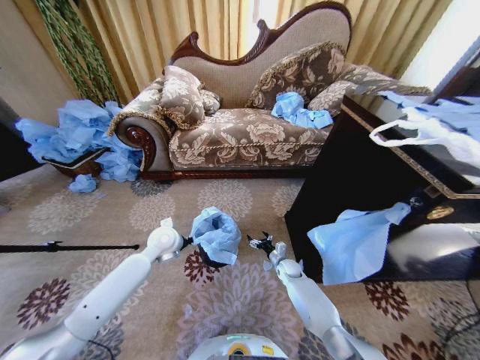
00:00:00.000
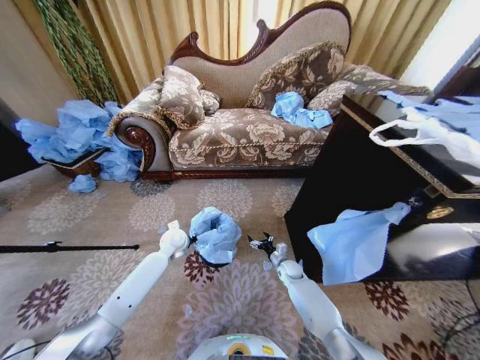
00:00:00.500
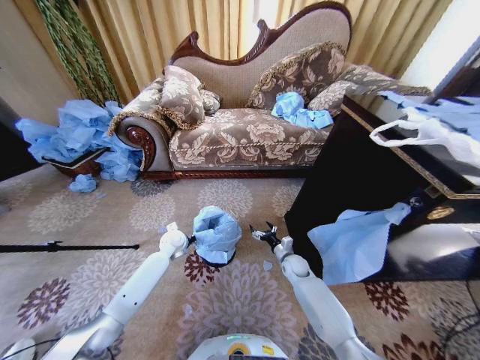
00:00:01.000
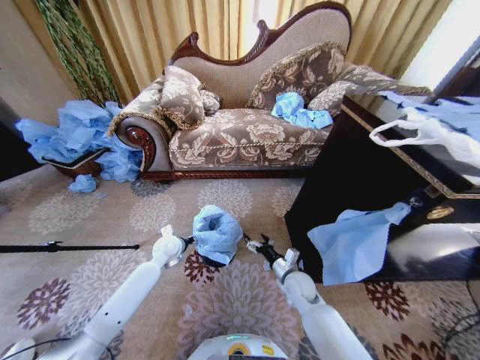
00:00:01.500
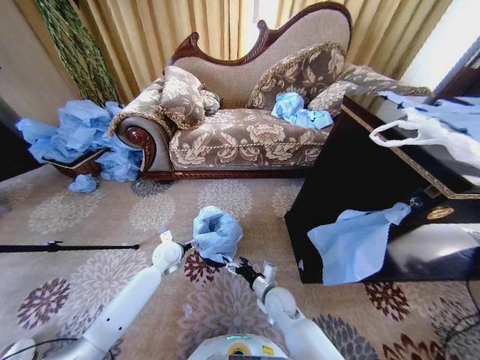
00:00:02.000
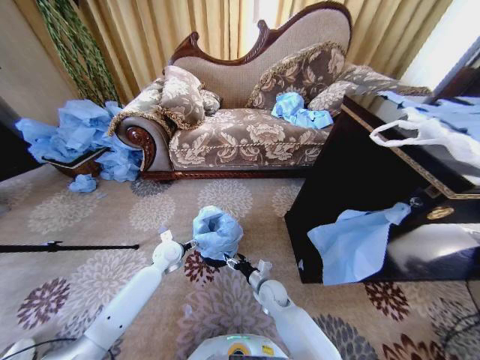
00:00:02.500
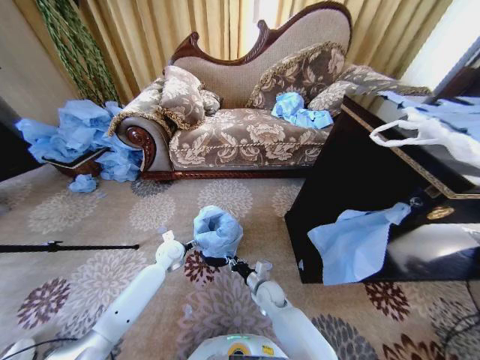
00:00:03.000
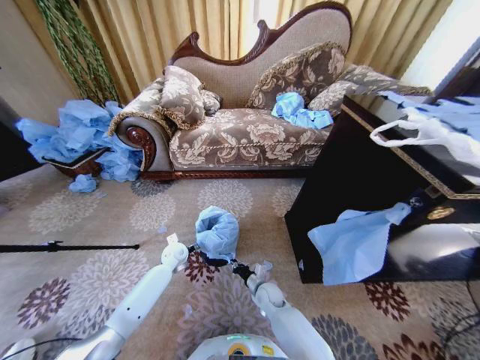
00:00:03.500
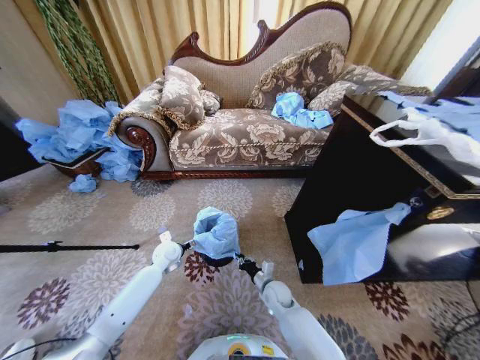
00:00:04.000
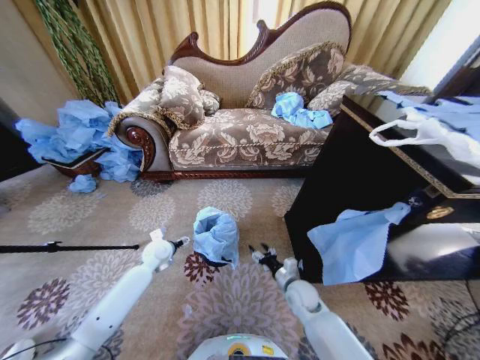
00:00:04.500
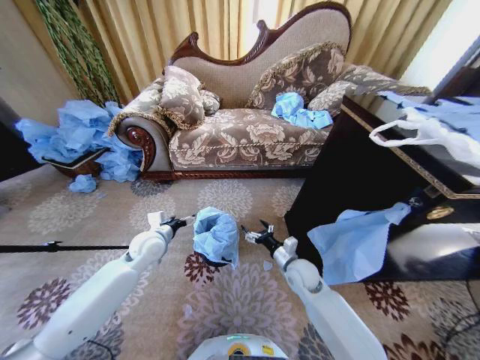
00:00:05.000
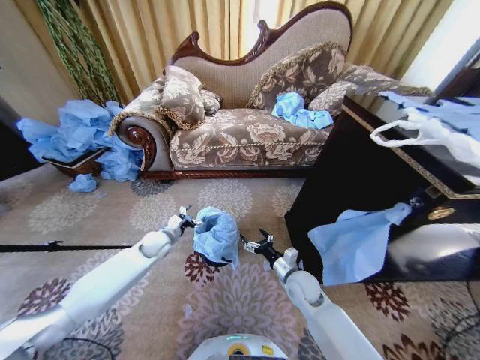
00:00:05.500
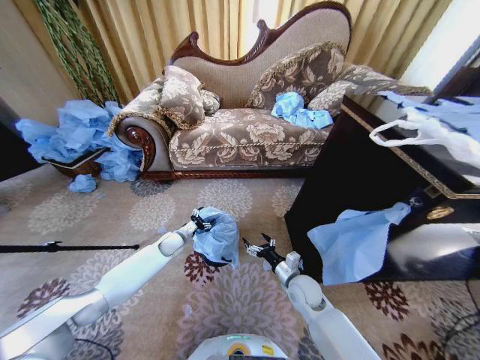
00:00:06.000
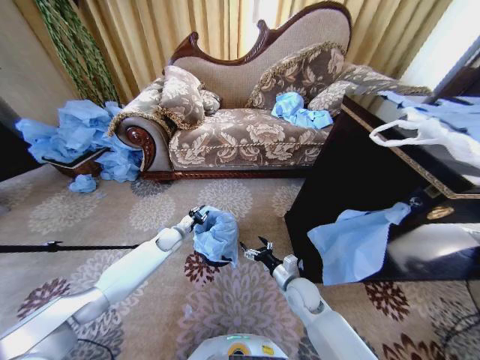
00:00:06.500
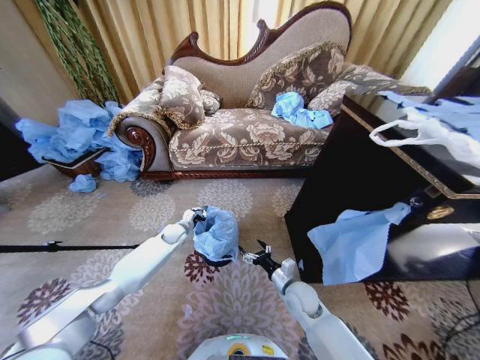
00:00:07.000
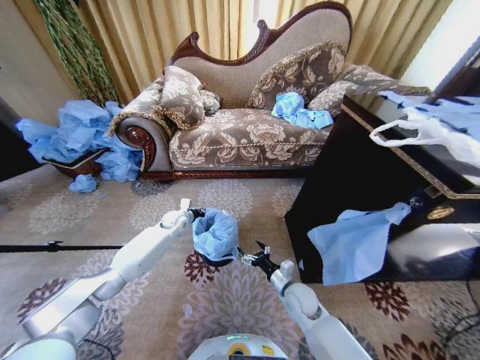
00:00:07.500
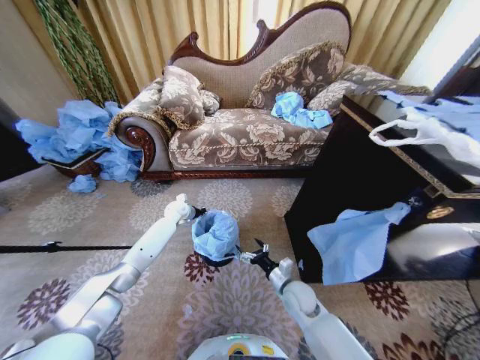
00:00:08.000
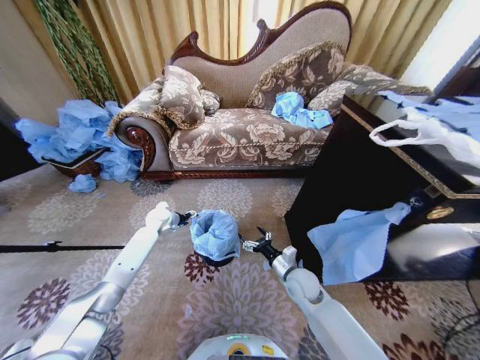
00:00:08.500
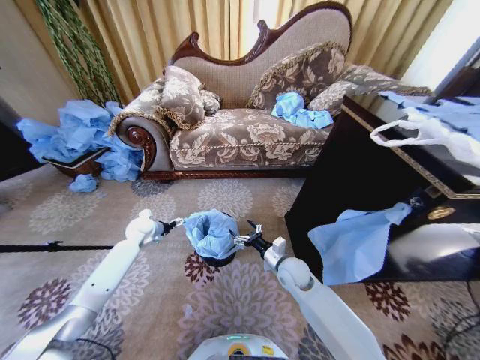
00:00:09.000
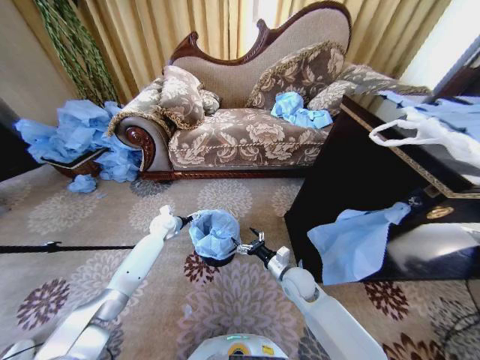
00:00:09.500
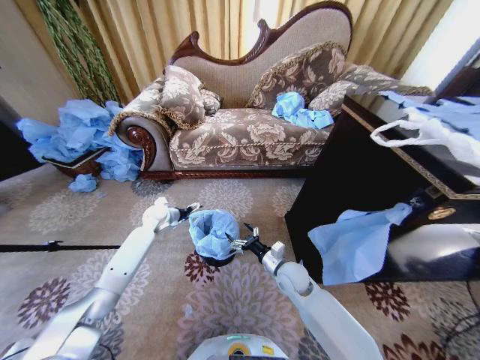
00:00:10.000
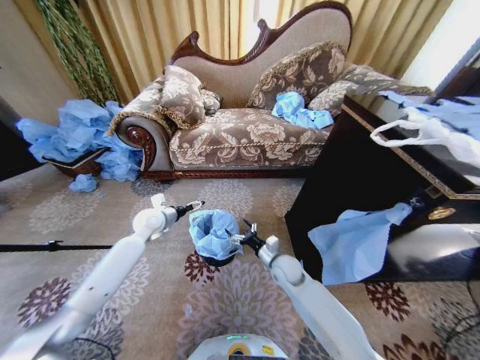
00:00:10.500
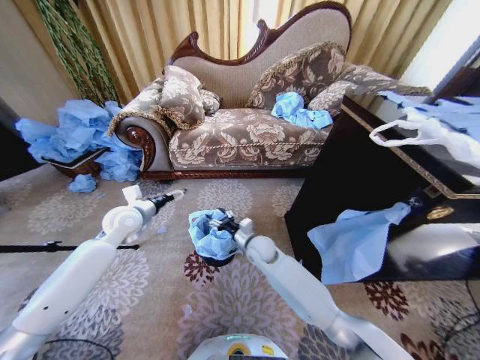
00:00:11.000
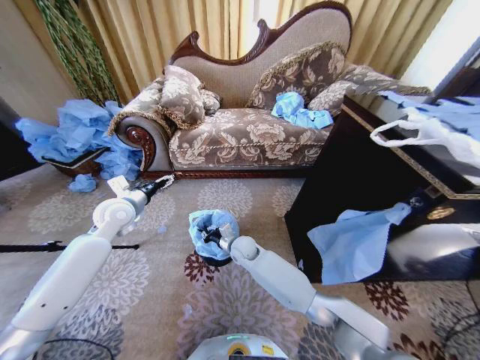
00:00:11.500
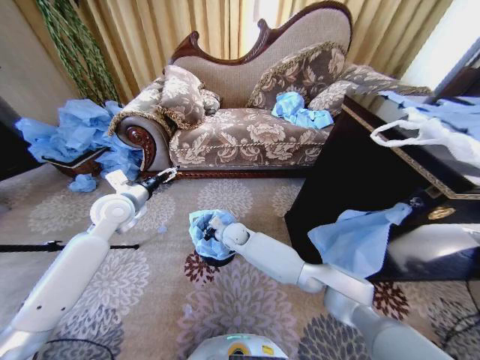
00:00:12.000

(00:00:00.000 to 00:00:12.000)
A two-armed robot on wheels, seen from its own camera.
Task of the whole recording: Place a garbage bag over the trash bin.
00:00:00.000 - 00:00:02.000: The right gripper goes approximately 20 cm backward, upward and to the left. The left gripper is displaced downward by approximately 10 cm, and opens up.
00:00:02.000 - 00:00:04.000: The right gripper moves some 5 cm, and closes.
00:00:04.000 - 00:00:06.000: The left gripper shifts roughly 5 cm forward, and reaches approximately 10 cm upward, then returns, while the right gripper travels upward and to the right by approximately 10 cm, and opens.
00:00:06.000 - 00:00:08.000: The left gripper is displaced forward and upward by approximately 15 cm, and closes up.
00:00:08.000 - 00:00:10.000: The right gripper shifts by about 5 cm. The left gripper heads backward, covering about 5 cm, and opens.
00:00:10.000 - 00:00:12.000: The left gripper moves upward and backward, some 20 cm. Meanwhile the right gripper goes roughly 25 cm to the left and forward, and closes.

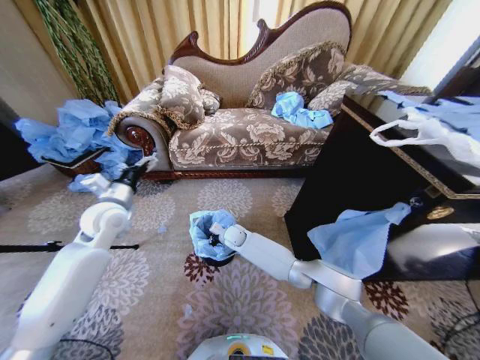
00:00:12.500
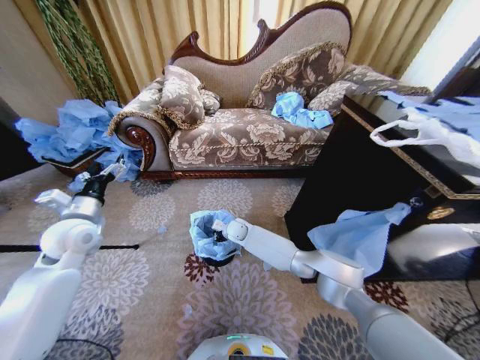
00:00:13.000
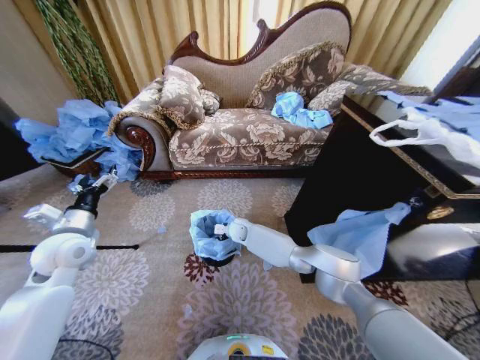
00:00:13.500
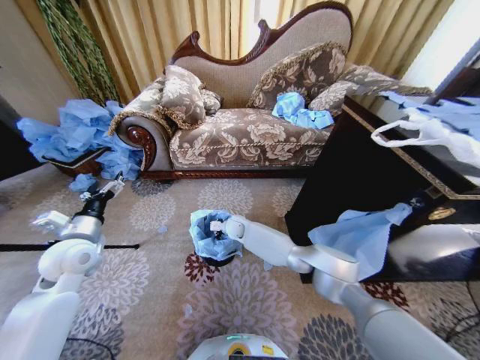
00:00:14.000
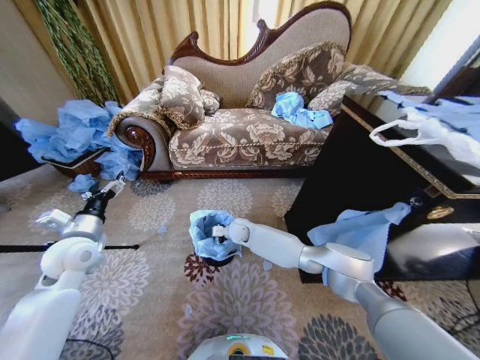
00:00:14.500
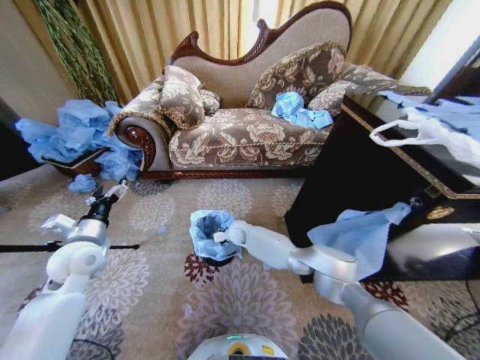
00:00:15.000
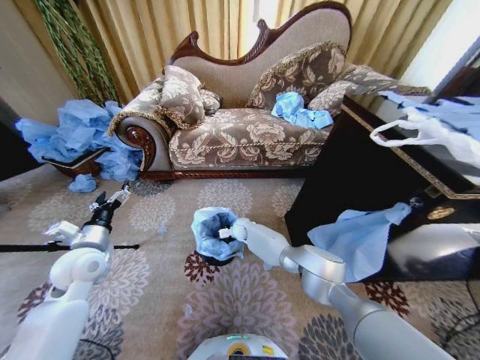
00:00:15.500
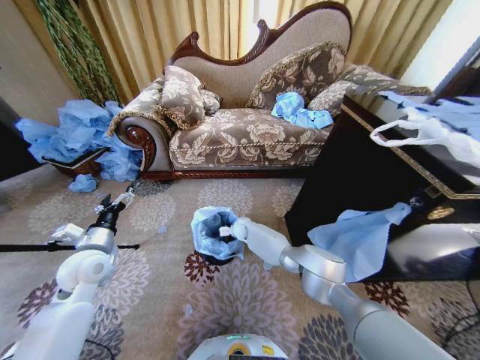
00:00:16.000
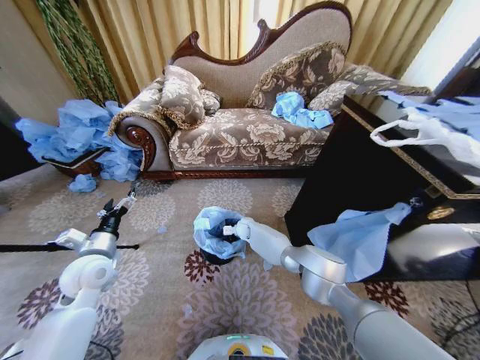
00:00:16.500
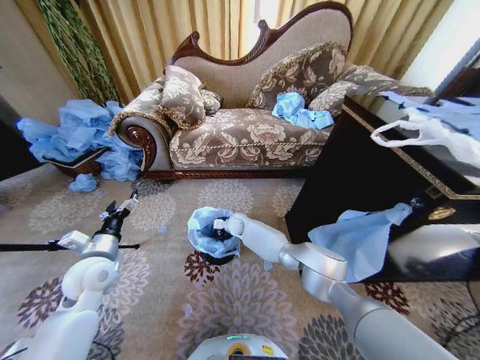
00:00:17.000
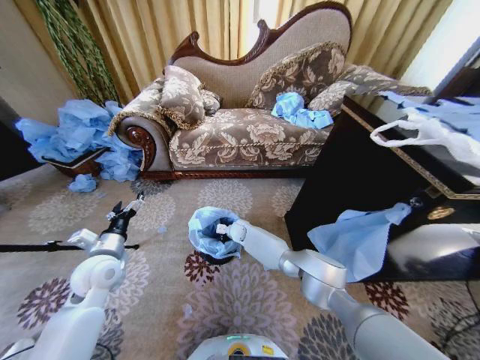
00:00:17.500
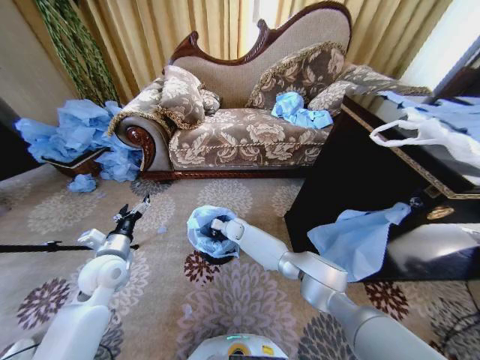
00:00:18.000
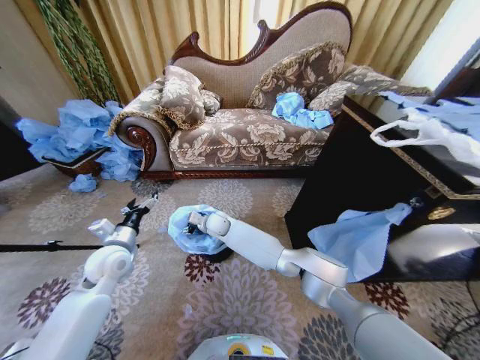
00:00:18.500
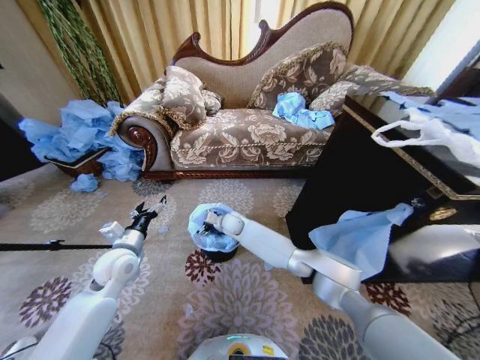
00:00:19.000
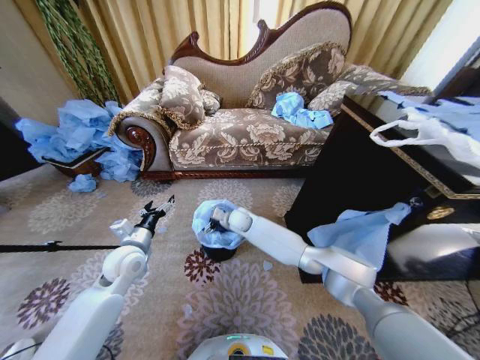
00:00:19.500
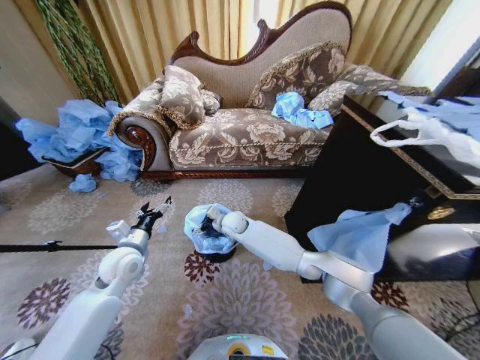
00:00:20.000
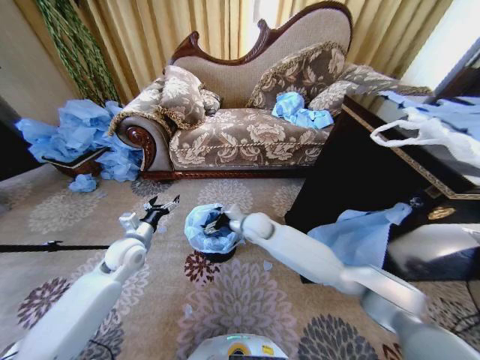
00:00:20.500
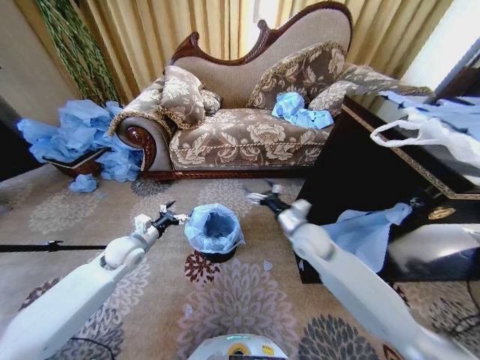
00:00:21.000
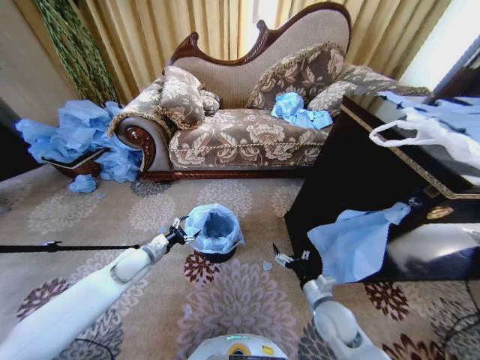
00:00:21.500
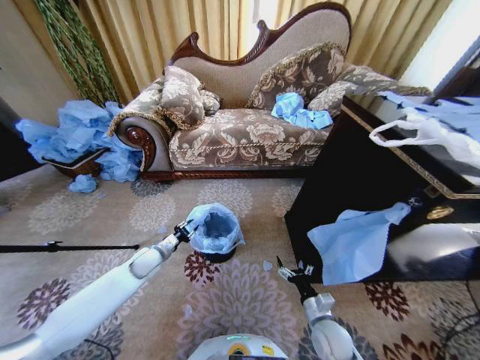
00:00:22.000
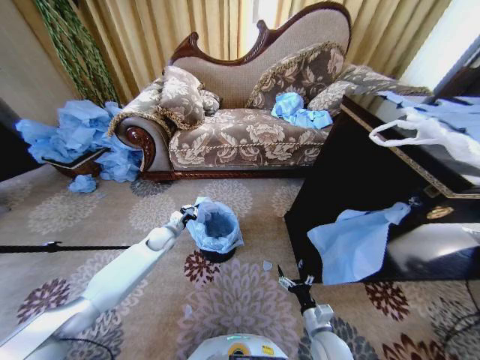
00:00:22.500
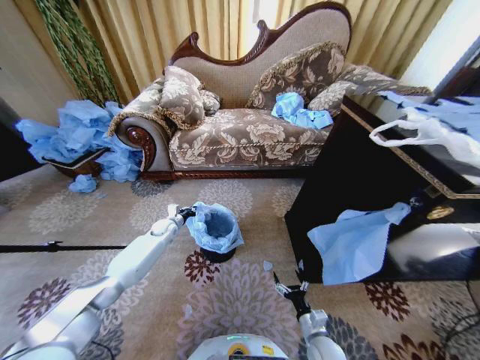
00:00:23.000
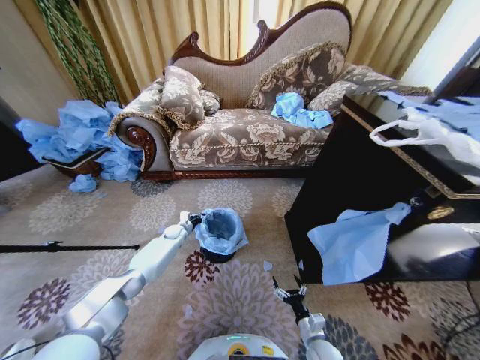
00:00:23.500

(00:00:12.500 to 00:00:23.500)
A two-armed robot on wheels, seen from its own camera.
Task of the whole recording: Place a garbage bag over the trash bin.
00:00:12.500 - 00:00:14.500: The left gripper travels backward by approximately 10 cm.
00:00:14.500 - 00:00:16.000: The right gripper shifts by approximately 5 cm.
00:00:18.000 - 00:00:20.000: The right gripper is displaced upward by some 10 cm, and opens its fingers.
00:00:20.000 - 00:00:21.500: The left gripper goes some 5 cm downward. Meanwhile the right gripper heads to the right and backward, covering roughly 40 cm.
00:00:21.500 - 00:00:23.500: The right gripper is displaced downward and backward by roughly 15 cm, while the left gripper heads forward and downward, covering about 25 cm, and closes its fingers.

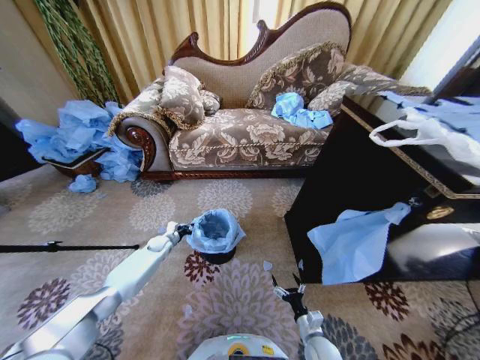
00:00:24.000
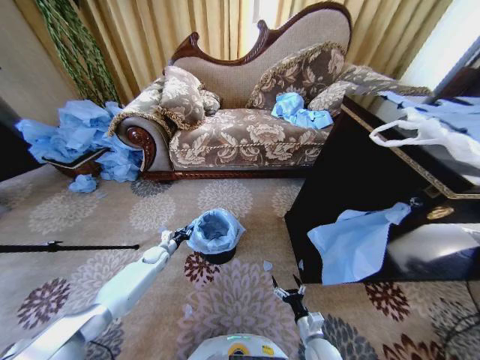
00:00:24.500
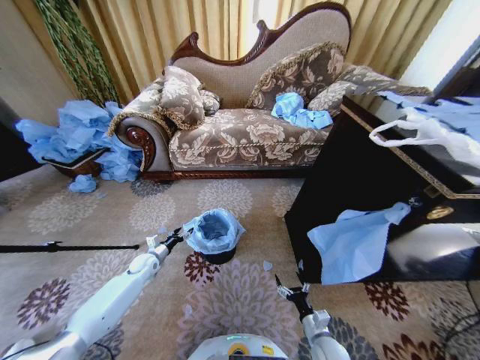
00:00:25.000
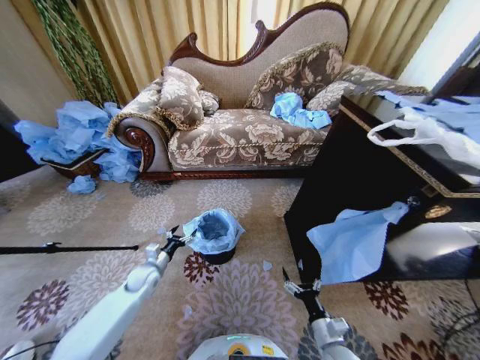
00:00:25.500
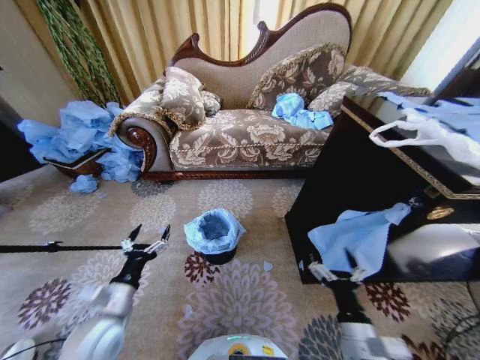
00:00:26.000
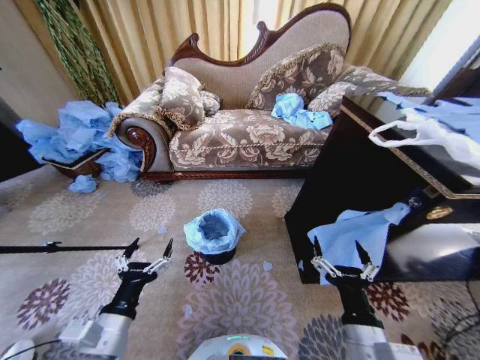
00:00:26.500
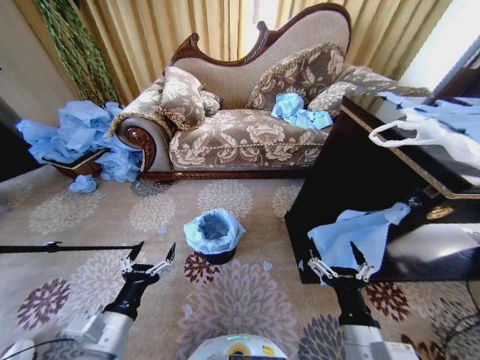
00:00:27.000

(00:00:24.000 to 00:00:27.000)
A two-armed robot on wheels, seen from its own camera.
Task of the whole recording: Place a garbage bag over the trash bin.
00:00:24.000 - 00:00:25.500: The left gripper is displaced backward by roughly 15 cm, and opens up; the right gripper goes some 10 cm upward.
00:00:25.500 - 00:00:27.000: The left gripper moves backward and upward, approximately 30 cm. Meanwhile the right gripper travels upward by about 20 cm.
